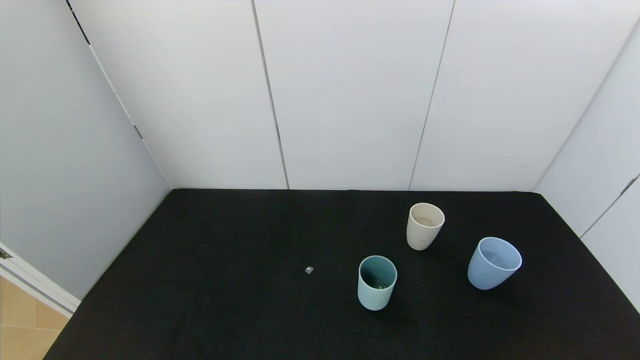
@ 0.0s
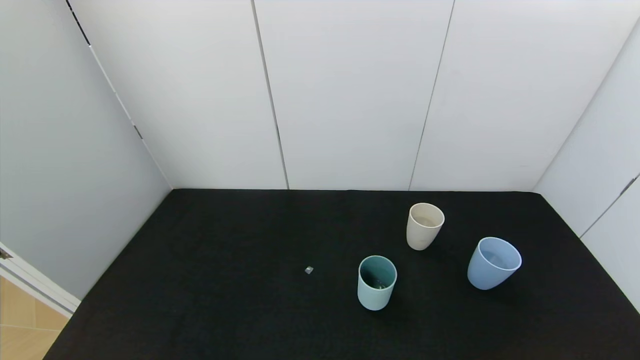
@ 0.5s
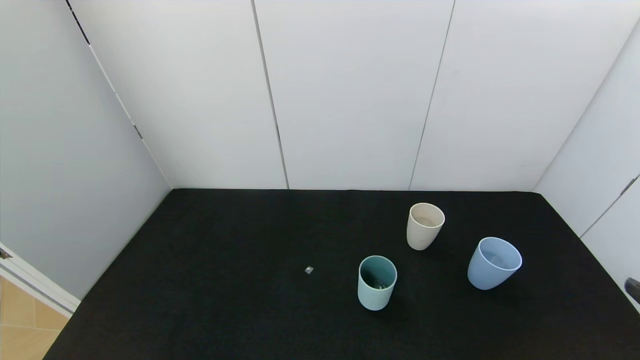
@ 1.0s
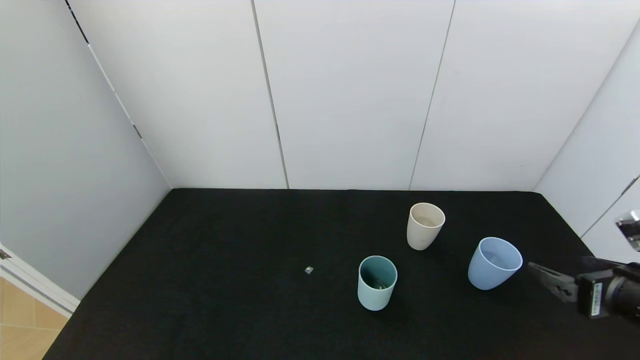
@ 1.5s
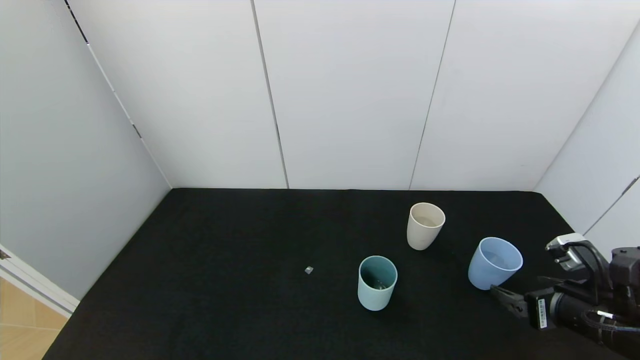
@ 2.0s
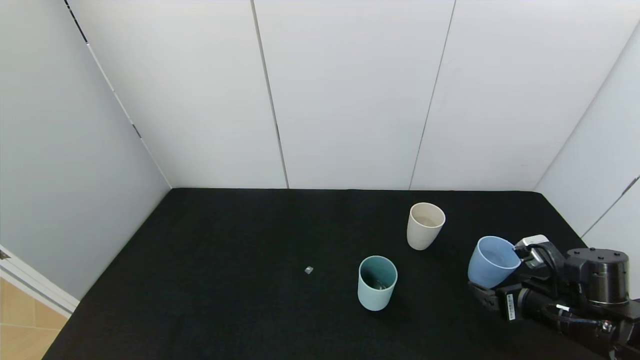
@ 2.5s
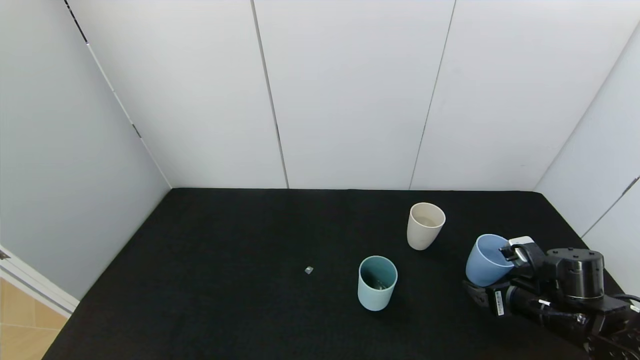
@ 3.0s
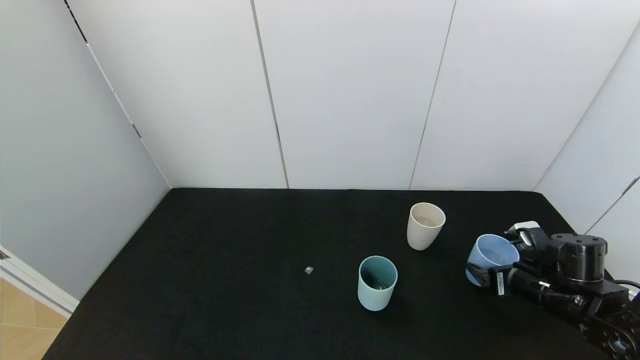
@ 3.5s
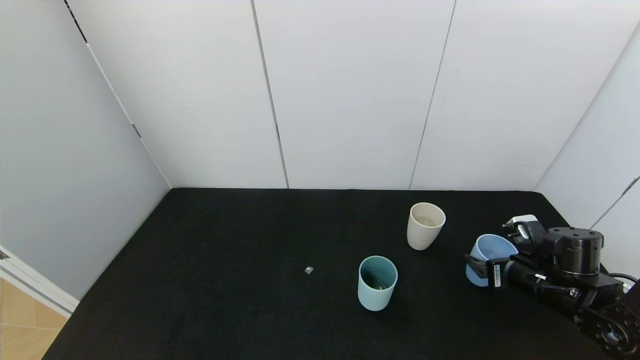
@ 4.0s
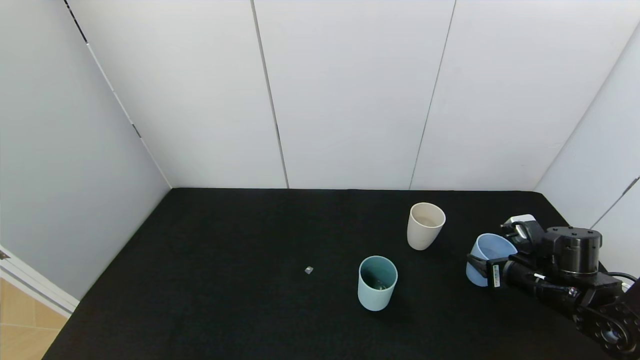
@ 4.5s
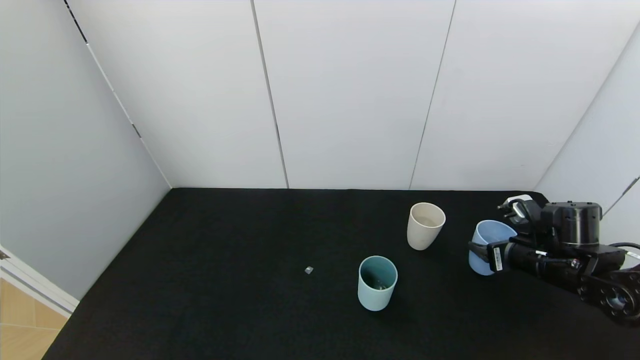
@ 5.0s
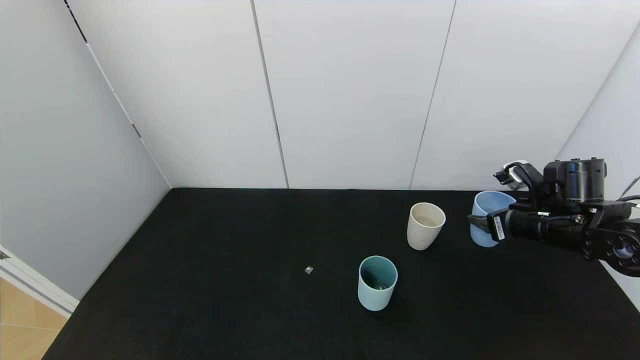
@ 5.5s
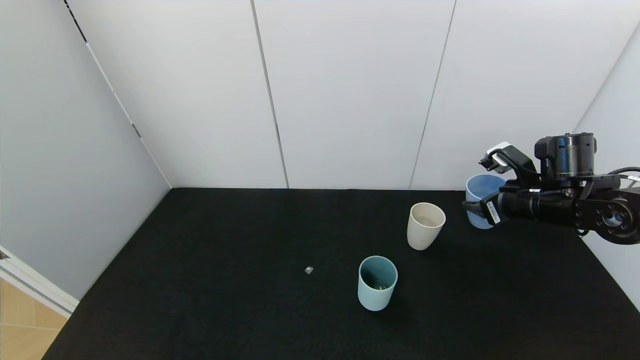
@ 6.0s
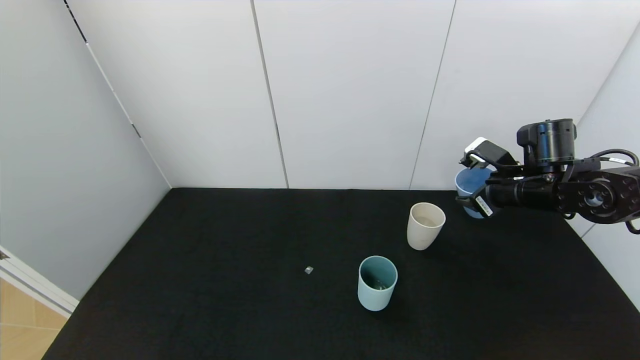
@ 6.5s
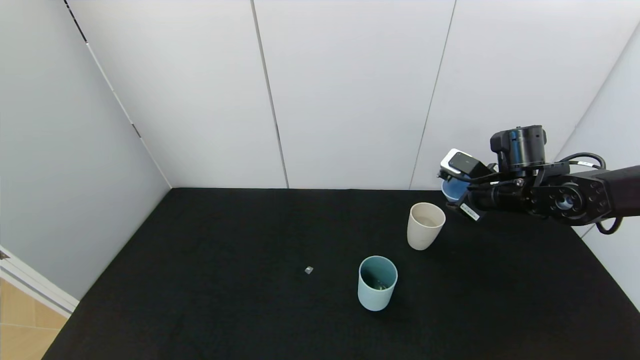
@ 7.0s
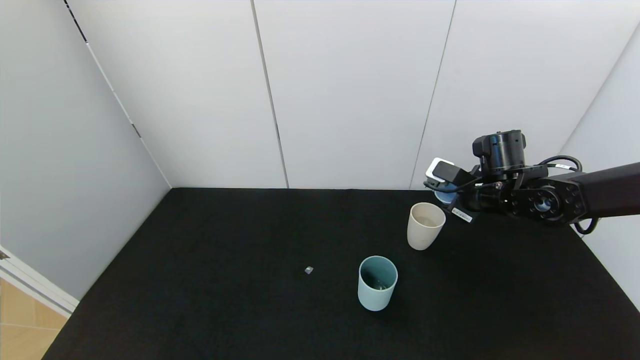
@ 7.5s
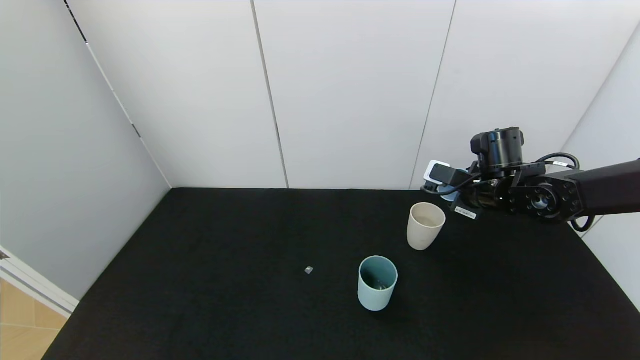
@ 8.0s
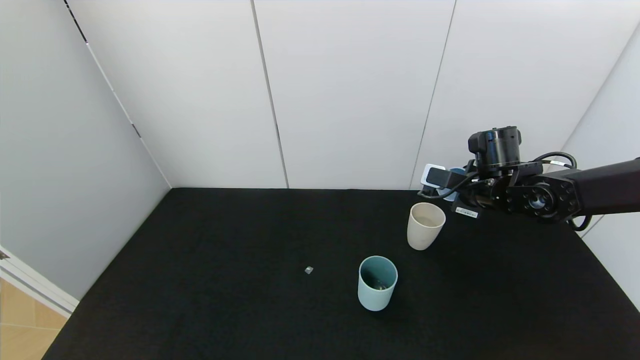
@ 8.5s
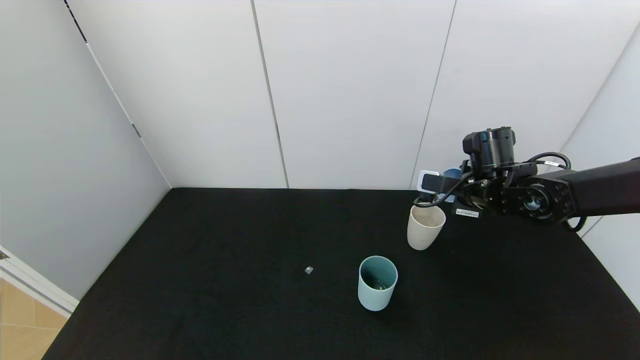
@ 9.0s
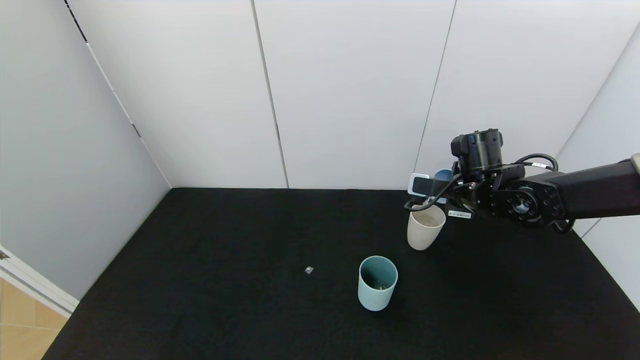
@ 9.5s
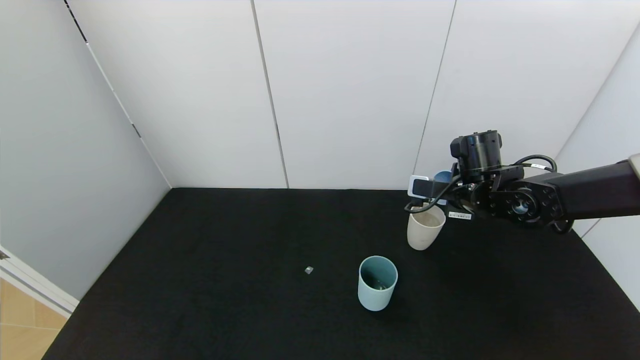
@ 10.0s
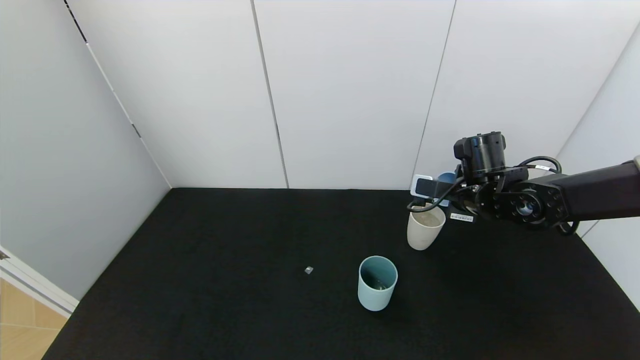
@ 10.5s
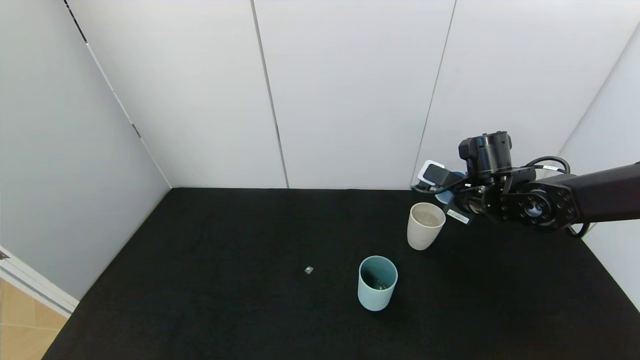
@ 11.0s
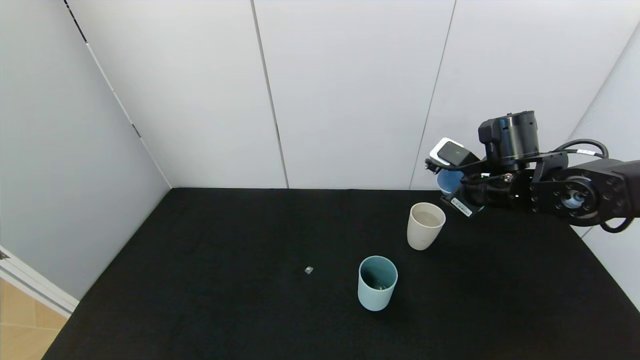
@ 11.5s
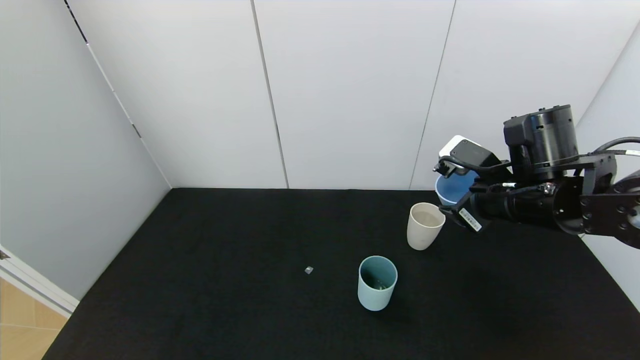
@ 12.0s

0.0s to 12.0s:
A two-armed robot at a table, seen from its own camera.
Task of the whole recording: use the gripper to pour the water into the other two cups on black table.
Step, 0.0s to 4.0s: Grasp the blue cup with the right gripper.
Step, 4.5s to 11.0s: Pour water from blue cup to white cup with the right gripper.
0.0s to 2.0s: The right gripper moves forward, some 25 cm.
2.0s to 4.0s: The right gripper goes some 10 cm forward.
4.0s to 6.0s: The right gripper moves upward and forward, about 15 cm, and closes its fingers.
6.0s to 8.0s: The right gripper heads to the left, covering approximately 5 cm.
8.0s to 10.0s: The grippers make only small movements.
10.0s to 12.0s: The right gripper moves backward and upward, roughly 10 cm.

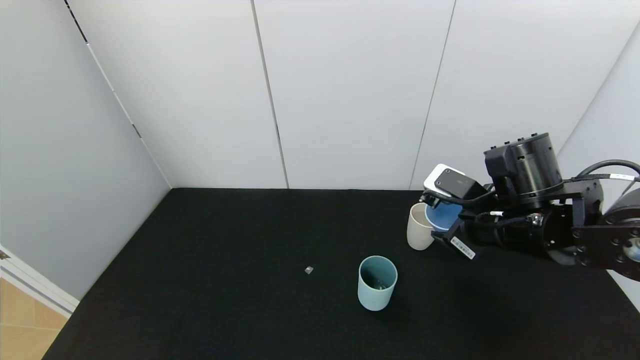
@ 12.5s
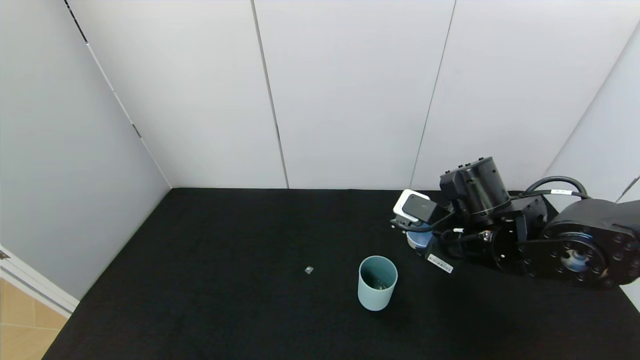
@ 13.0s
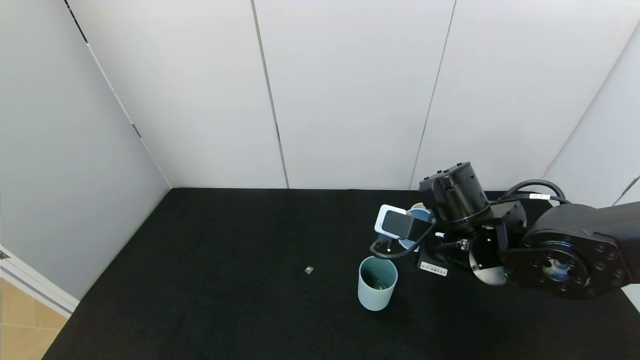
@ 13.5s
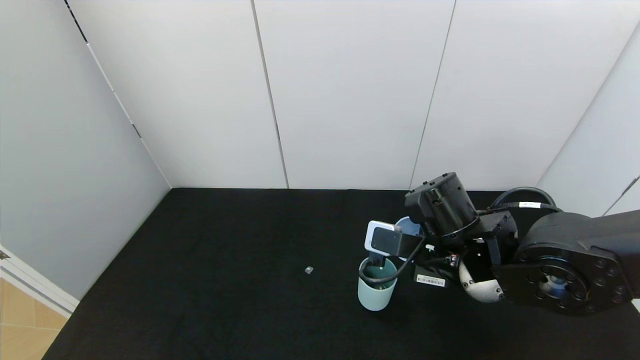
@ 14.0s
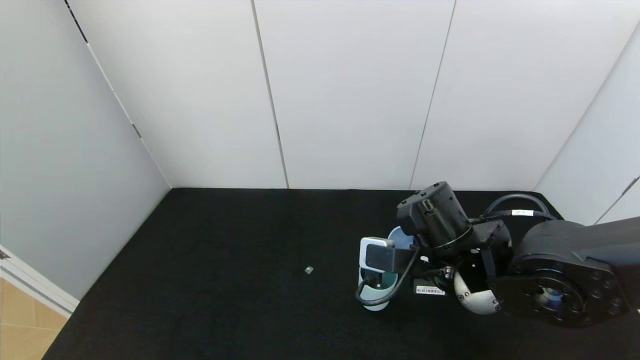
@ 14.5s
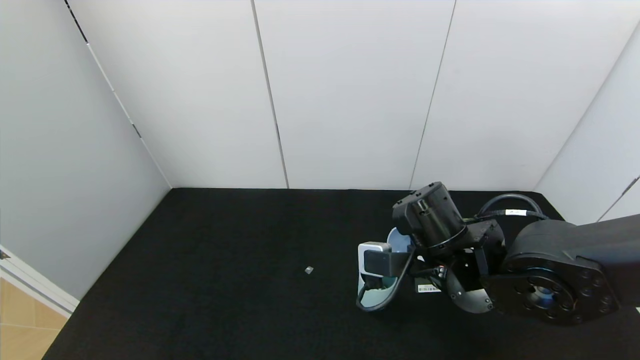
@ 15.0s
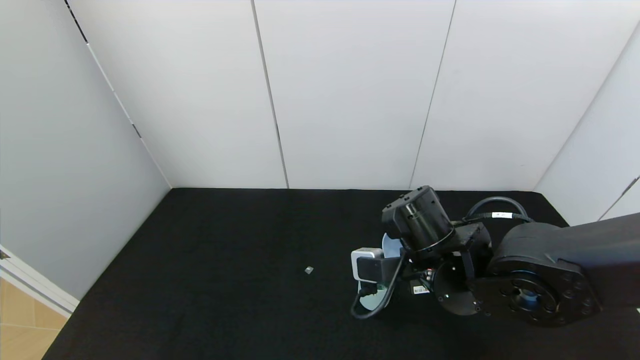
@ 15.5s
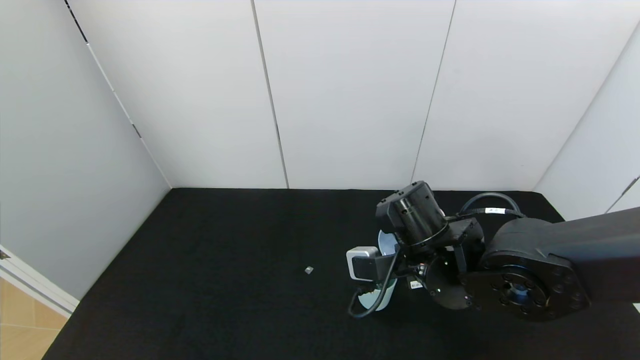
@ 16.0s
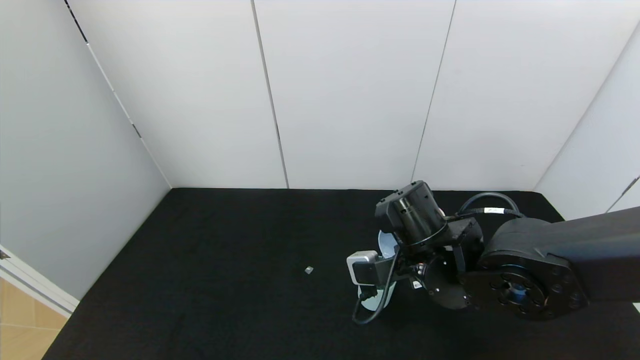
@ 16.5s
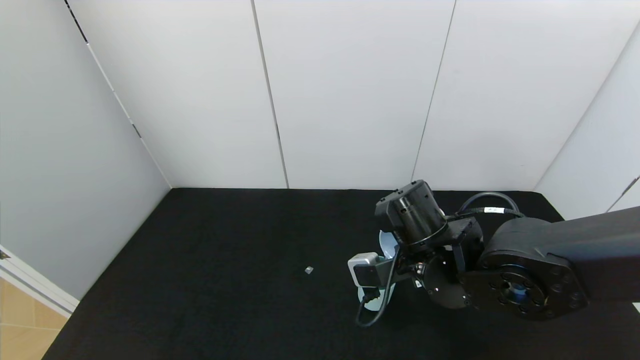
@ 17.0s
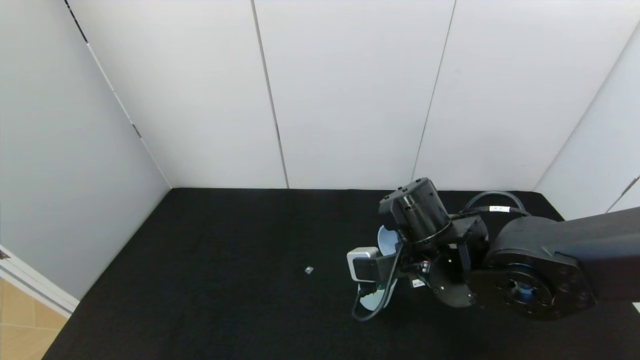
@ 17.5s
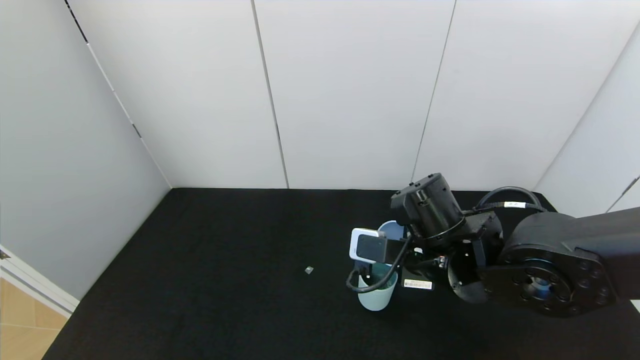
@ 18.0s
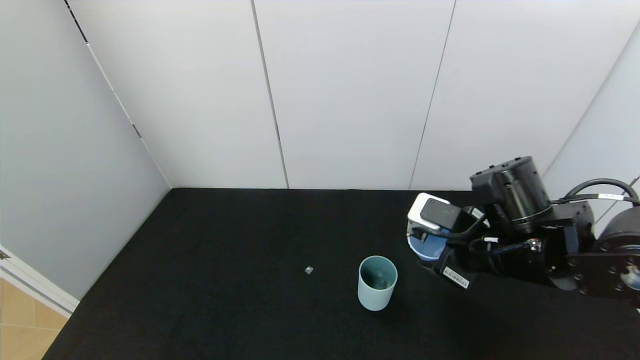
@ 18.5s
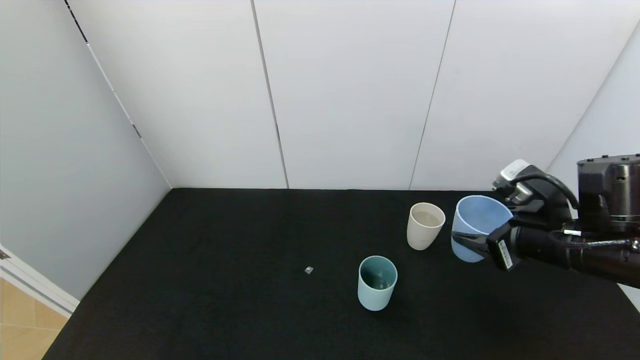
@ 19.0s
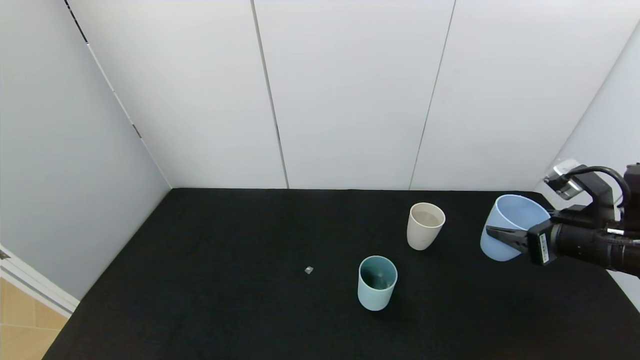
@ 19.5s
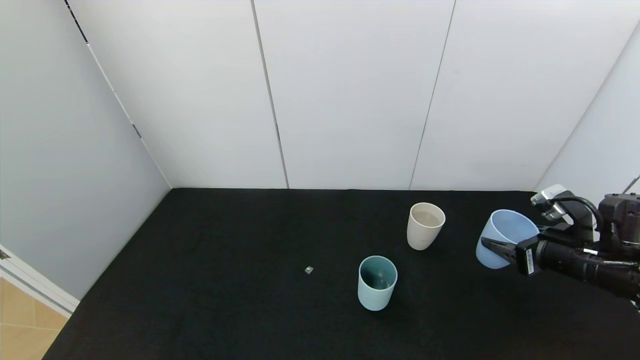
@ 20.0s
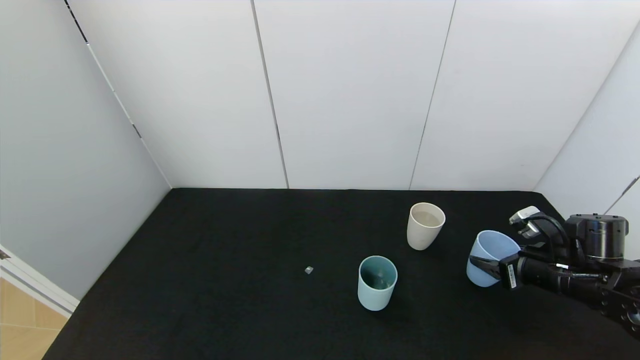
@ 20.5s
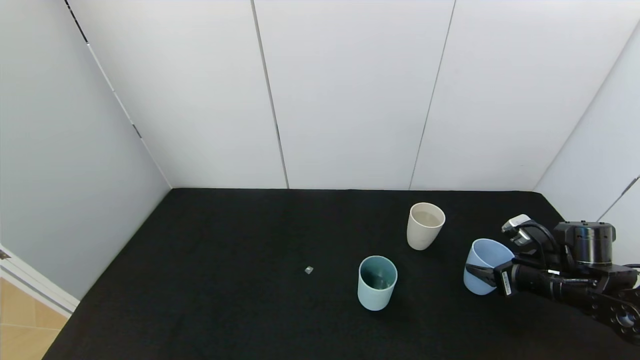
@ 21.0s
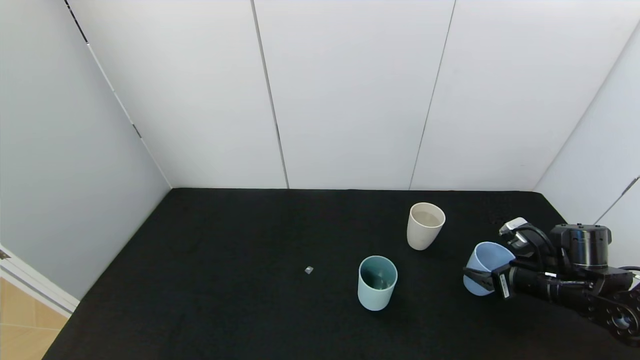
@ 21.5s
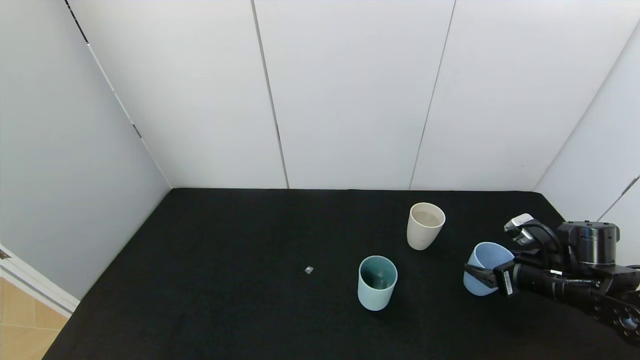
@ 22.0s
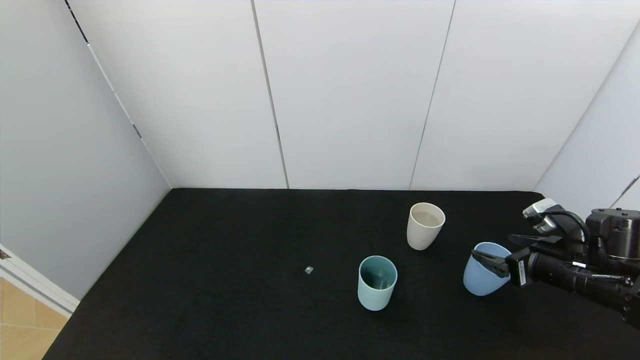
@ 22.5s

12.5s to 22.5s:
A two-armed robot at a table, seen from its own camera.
Task of the whole recording: use the gripper to pour the water into the other two cups on black table.
Step, 12.5s to 18.0s: Pour water from blue cup to green cup with the right gripper.
12.5s to 14.5s: The right gripper heads to the left, covering roughly 10 cm.
16.5s to 18.5s: The right gripper moves to the right, approximately 10 cm.
18.5s to 20.5s: The right gripper is displaced to the right and downward by approximately 20 cm.
20.5s to 22.5s: The right gripper opens.
